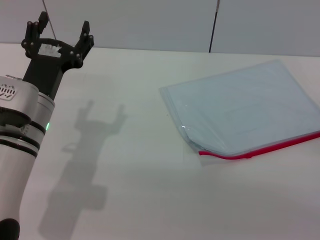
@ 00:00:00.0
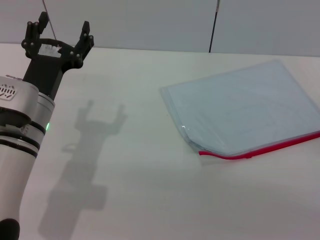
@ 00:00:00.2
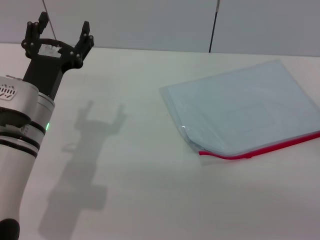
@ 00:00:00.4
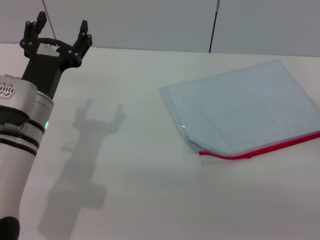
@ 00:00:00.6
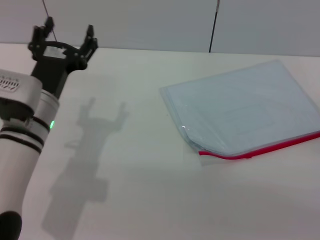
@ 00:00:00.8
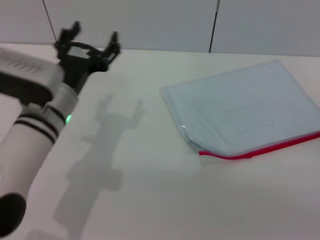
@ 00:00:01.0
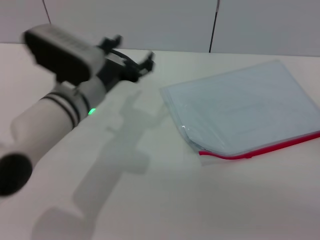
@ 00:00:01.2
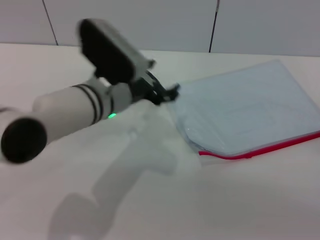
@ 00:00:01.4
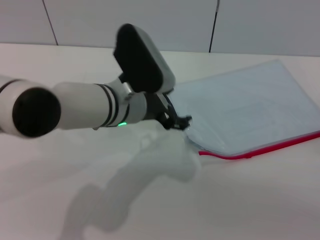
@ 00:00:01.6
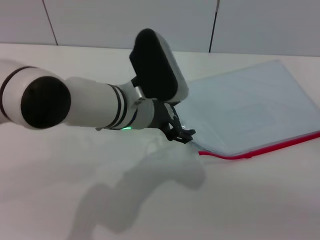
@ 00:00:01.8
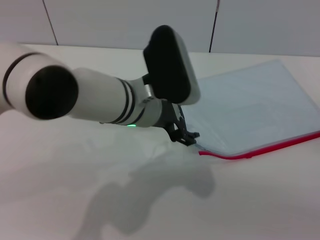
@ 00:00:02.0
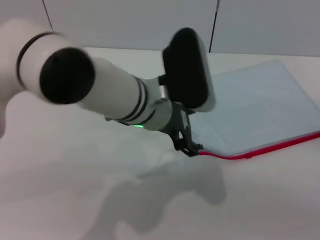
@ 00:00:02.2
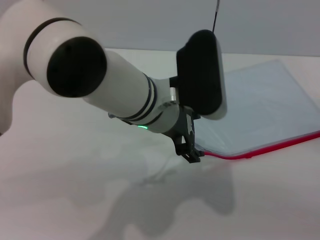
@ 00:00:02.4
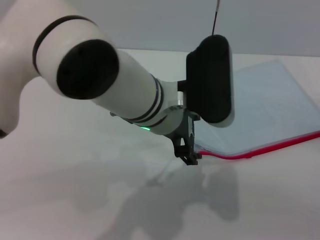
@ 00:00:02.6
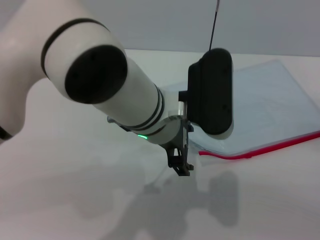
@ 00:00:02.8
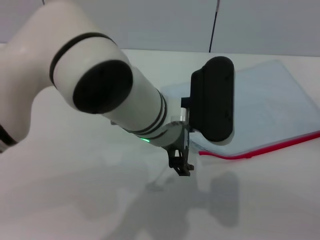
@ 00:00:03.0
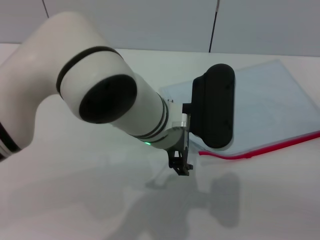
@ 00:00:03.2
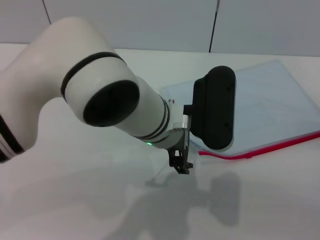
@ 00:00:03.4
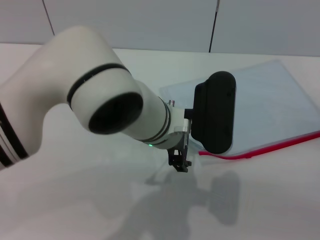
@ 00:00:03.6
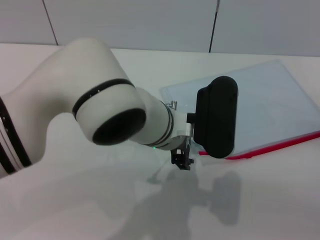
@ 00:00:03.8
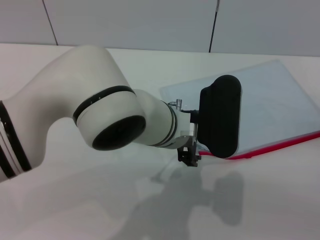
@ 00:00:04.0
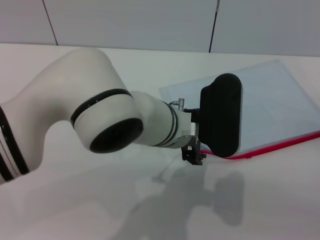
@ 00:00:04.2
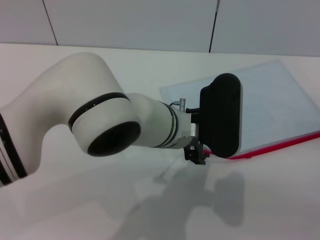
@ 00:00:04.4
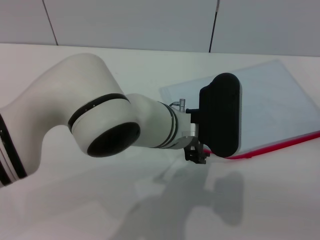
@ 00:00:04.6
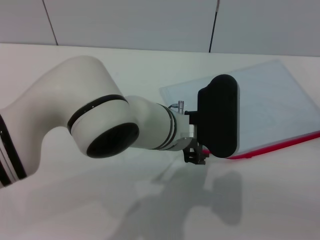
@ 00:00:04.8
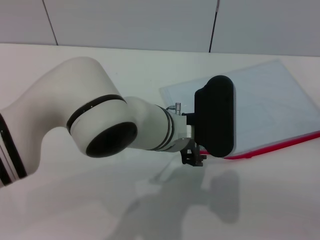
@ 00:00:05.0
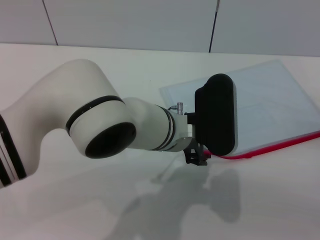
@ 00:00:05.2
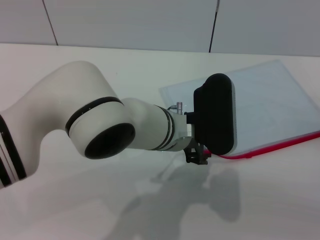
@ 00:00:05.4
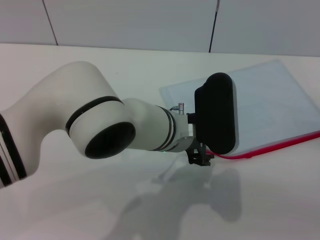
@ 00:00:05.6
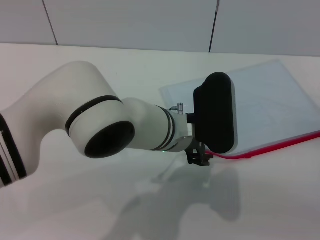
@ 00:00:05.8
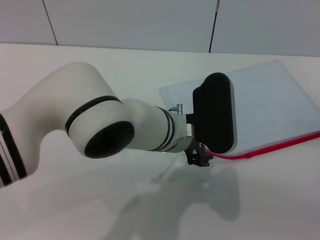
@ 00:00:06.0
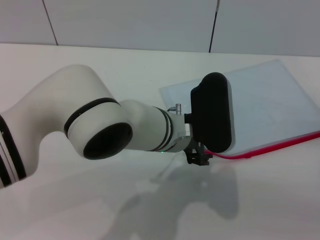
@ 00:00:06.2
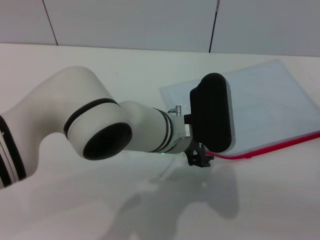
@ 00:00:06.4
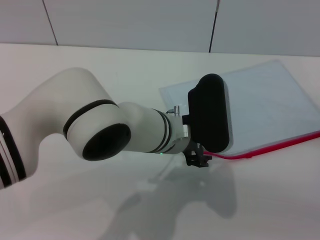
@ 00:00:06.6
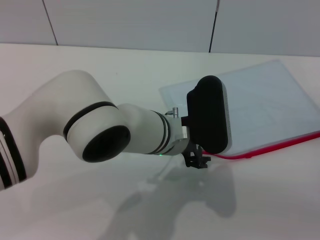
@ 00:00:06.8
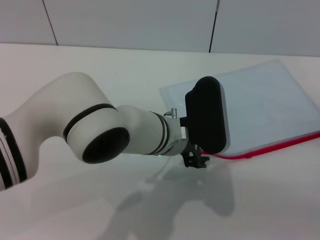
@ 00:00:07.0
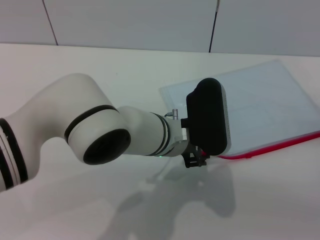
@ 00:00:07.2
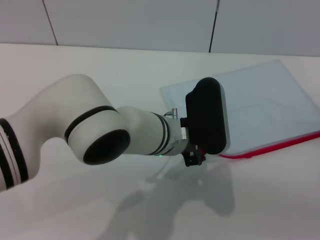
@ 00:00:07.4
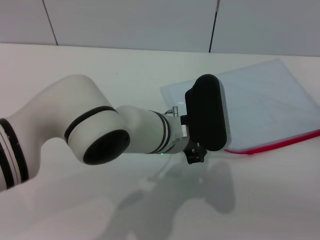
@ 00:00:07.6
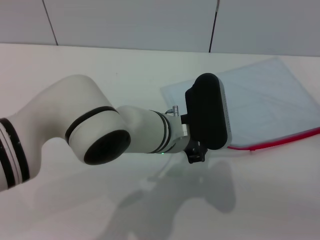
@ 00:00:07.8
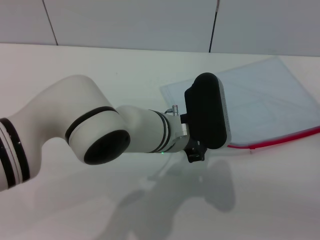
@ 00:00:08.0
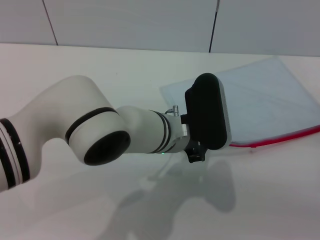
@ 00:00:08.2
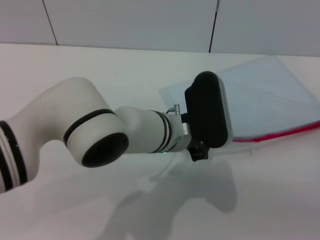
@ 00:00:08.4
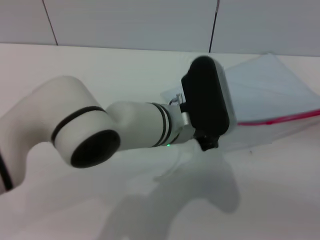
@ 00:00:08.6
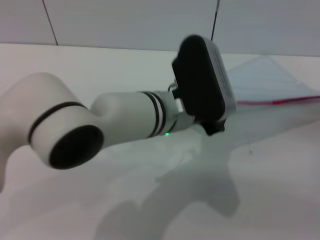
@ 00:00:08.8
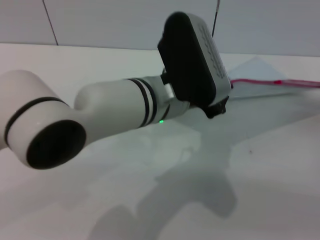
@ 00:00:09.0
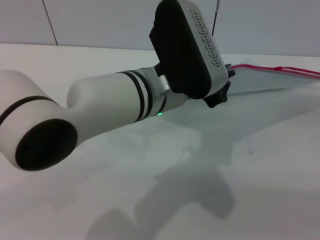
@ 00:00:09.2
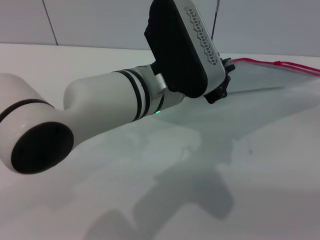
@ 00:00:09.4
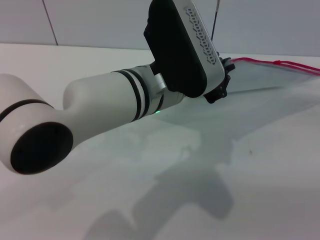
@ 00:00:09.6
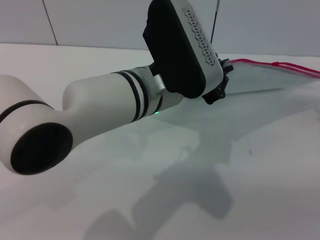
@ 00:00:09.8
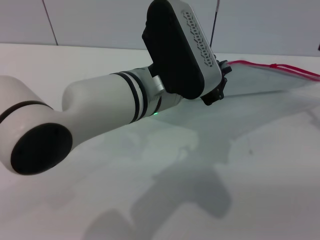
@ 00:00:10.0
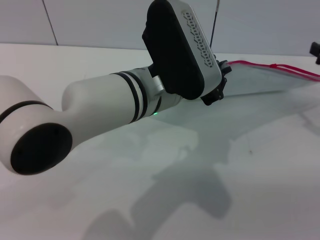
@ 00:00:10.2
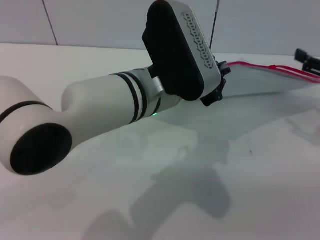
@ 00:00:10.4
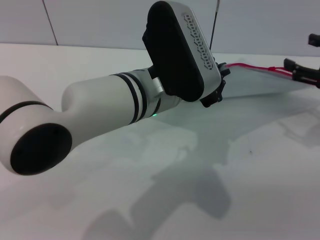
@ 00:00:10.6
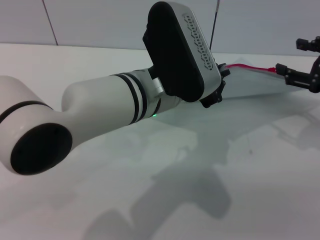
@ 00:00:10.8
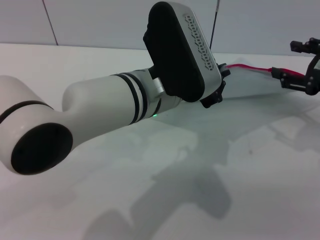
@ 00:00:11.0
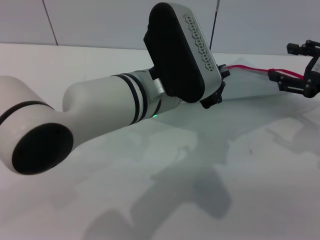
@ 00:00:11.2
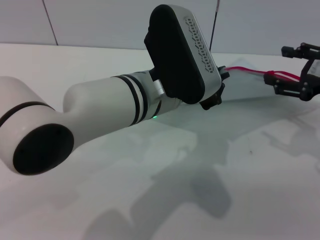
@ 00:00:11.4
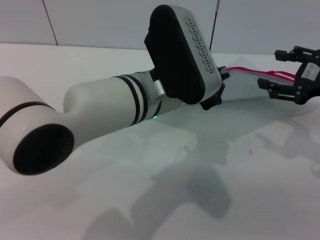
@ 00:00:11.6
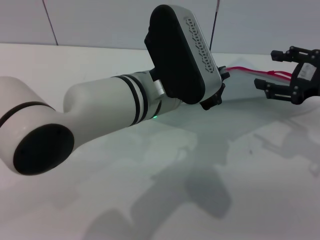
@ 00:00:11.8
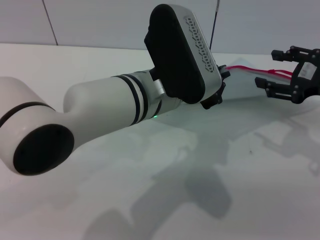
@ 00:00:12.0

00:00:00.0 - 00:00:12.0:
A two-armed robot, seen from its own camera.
Step, 00:00:00.0 - 00:00:10.6: Pick up the transparent plastic bag with the left gripper.
00:00:00.0 - 00:00:01.6: The left gripper moves to the right and forward, approximately 10 cm.
00:00:01.6 - 00:00:03.0: The left gripper goes about 5 cm to the right.
00:00:04.4 - 00:00:06.0: The grippers stay close to where they were, moving slightly.
00:00:06.0 - 00:00:07.6: The left gripper closes up.
00:00:07.6 - 00:00:09.0: The left gripper travels upward by approximately 5 cm.
00:00:09.0 - 00:00:10.4: The right gripper is displaced upward by approximately 10 cm.

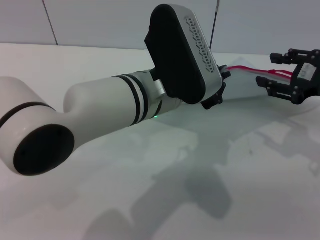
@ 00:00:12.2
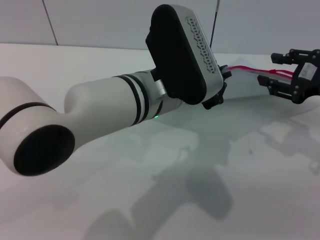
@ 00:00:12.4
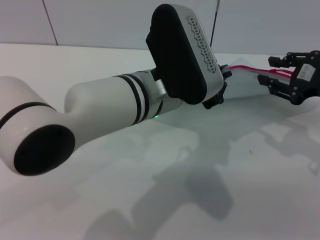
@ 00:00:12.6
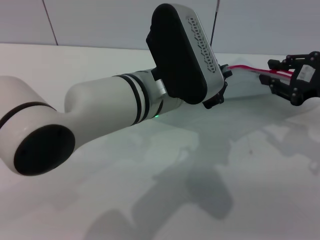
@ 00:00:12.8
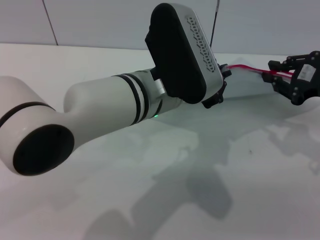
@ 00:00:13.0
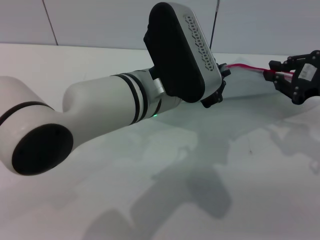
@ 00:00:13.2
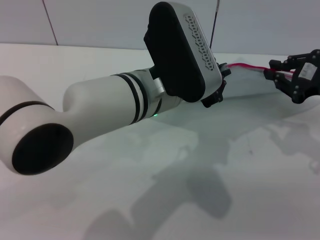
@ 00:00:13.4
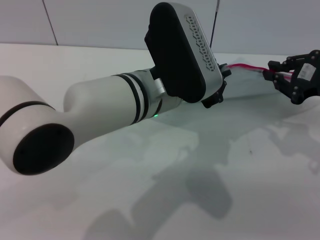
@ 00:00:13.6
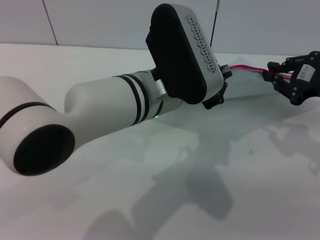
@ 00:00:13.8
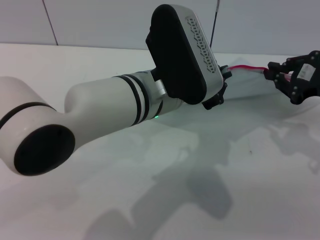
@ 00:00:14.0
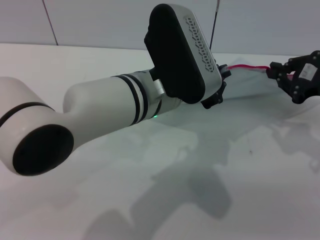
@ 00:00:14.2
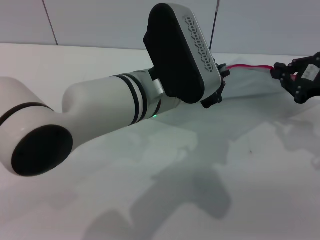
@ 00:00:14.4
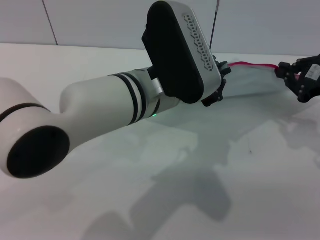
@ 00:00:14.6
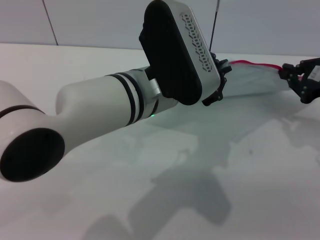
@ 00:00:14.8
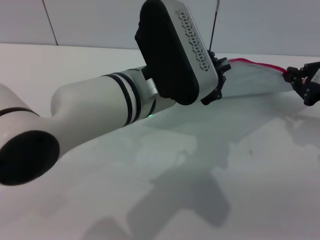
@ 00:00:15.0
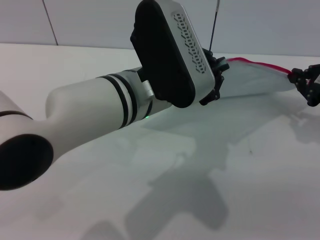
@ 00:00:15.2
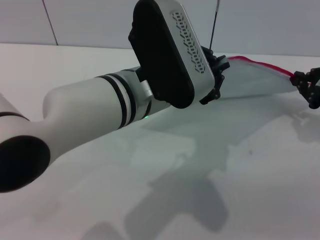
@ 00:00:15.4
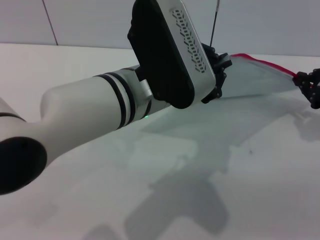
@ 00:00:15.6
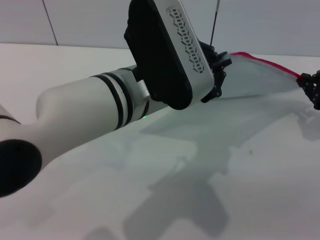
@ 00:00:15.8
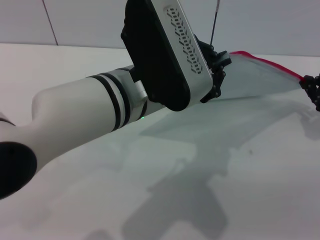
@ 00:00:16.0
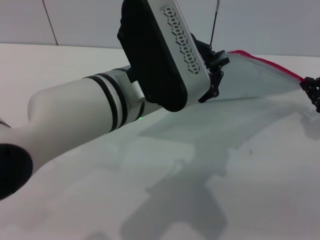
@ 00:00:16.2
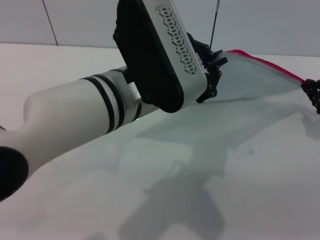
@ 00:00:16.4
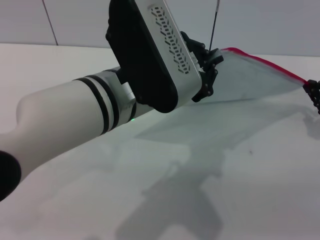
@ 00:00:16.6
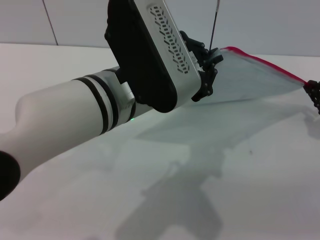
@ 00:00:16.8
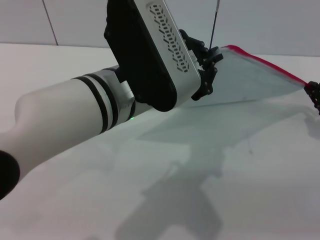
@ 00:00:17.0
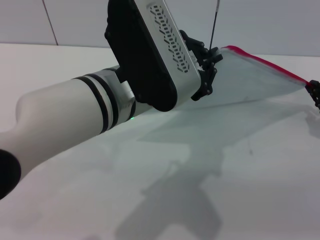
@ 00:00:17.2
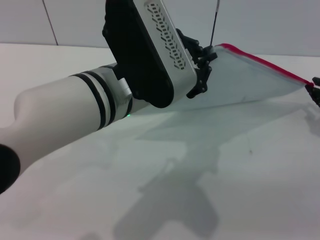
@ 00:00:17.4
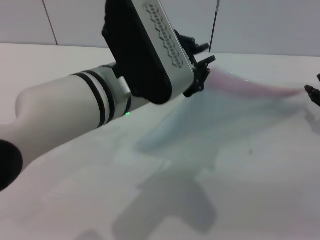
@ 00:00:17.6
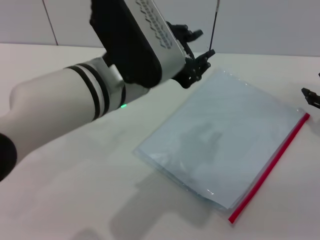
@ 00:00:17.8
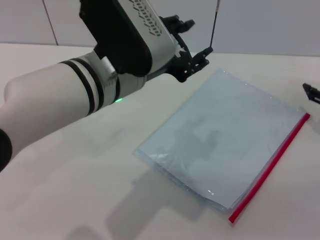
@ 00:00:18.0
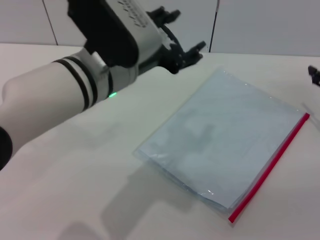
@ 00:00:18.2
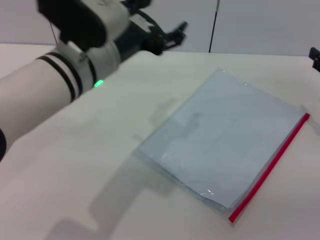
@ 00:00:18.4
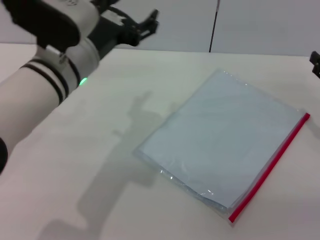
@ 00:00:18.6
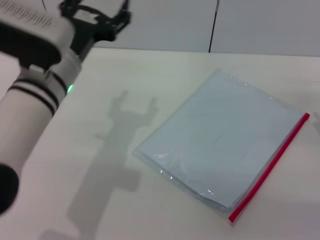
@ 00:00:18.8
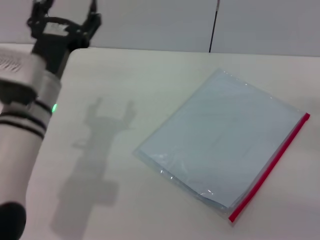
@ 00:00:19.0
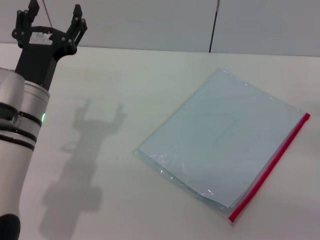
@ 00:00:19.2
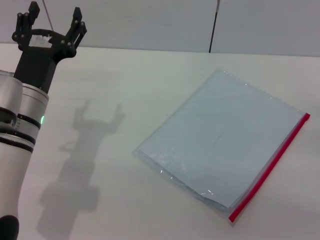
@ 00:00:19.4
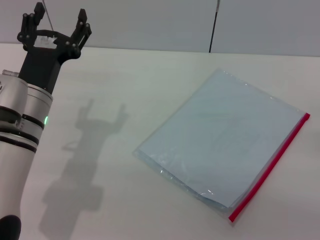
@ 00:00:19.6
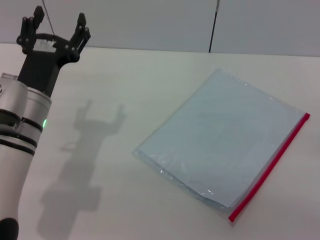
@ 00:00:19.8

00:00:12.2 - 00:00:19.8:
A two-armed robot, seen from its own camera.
Step, 00:00:12.2 - 00:00:17.4: Pulling up the zipper on the transparent plastic bag with the right gripper to close it.
Step, 00:00:17.6 - 00:00:18.0: Place the transparent plastic bag.
00:00:12.2 - 00:00:13.8: The right gripper closes.
00:00:13.8 - 00:00:15.2: The grippers stay close to where they were, moving slightly.
00:00:15.2 - 00:00:16.8: The grippers move only a little.
00:00:16.8 - 00:00:18.2: The left gripper opens up, while the right gripper opens.
00:00:18.2 - 00:00:19.8: The right gripper moves backward and downward, about 10 cm, while the left gripper is displaced downward and to the left by approximately 15 cm.
